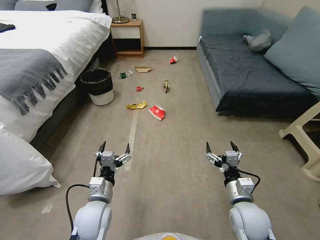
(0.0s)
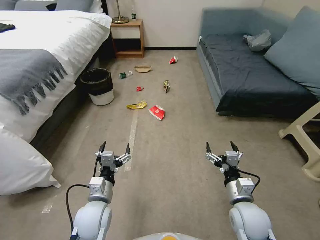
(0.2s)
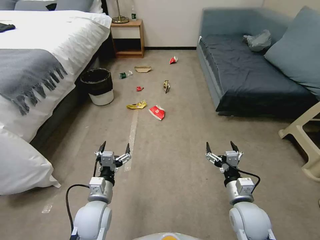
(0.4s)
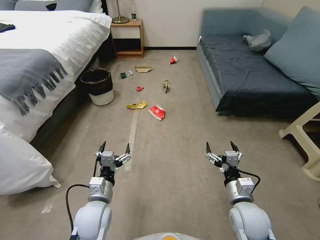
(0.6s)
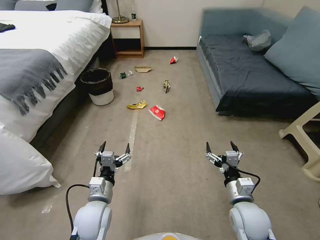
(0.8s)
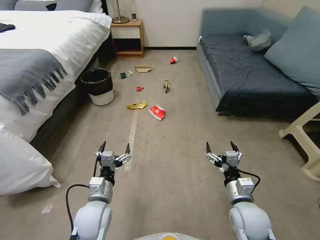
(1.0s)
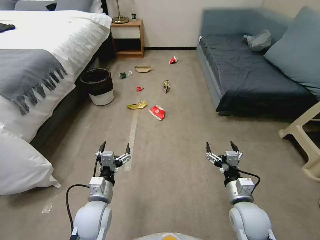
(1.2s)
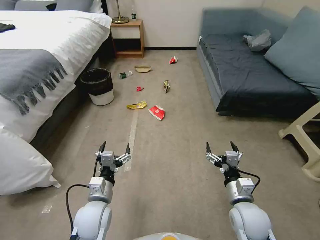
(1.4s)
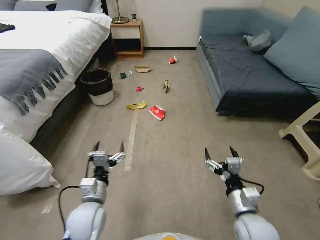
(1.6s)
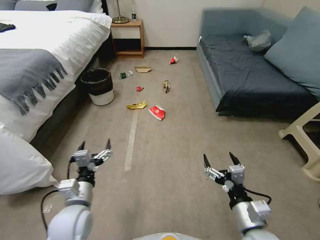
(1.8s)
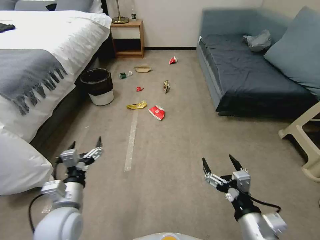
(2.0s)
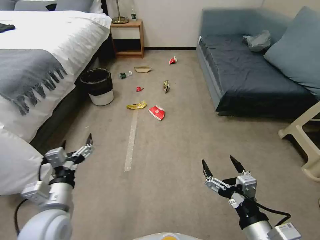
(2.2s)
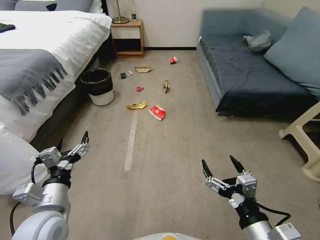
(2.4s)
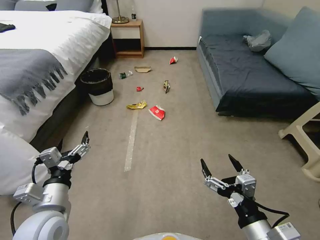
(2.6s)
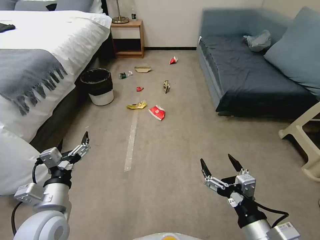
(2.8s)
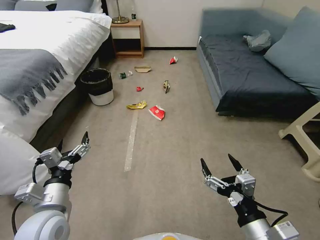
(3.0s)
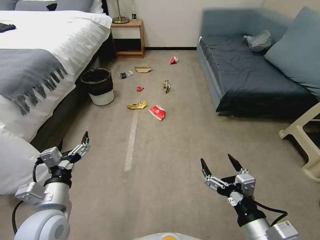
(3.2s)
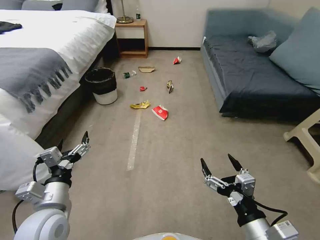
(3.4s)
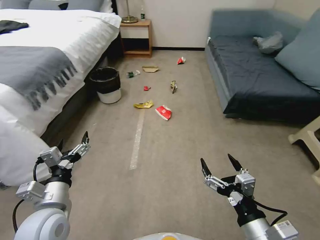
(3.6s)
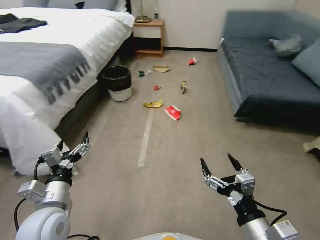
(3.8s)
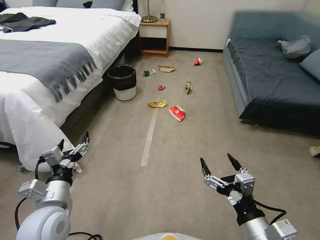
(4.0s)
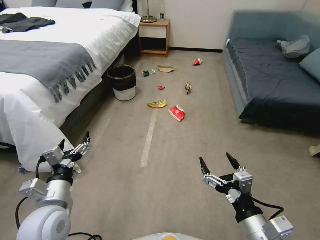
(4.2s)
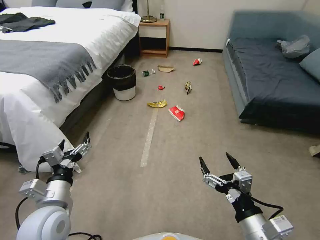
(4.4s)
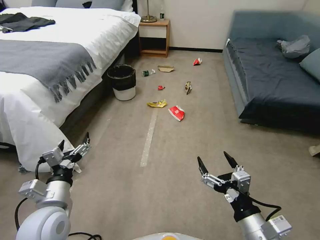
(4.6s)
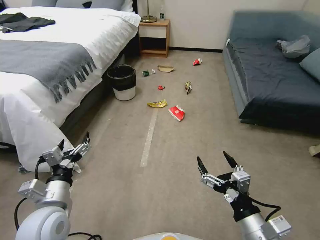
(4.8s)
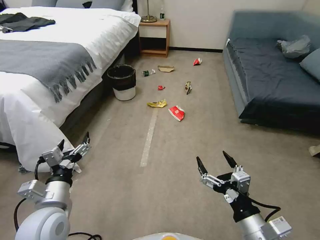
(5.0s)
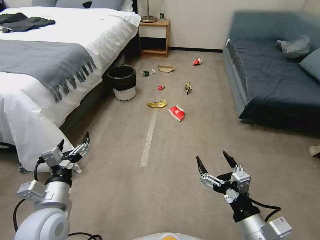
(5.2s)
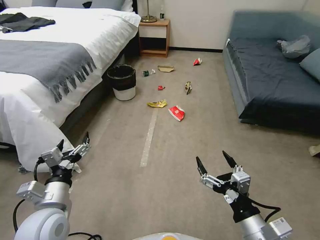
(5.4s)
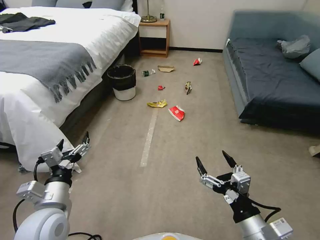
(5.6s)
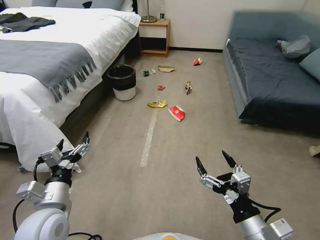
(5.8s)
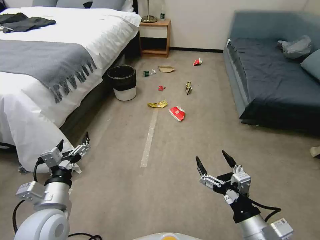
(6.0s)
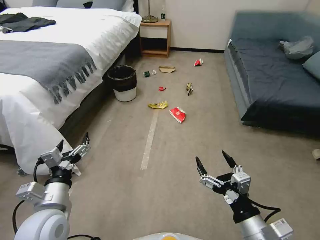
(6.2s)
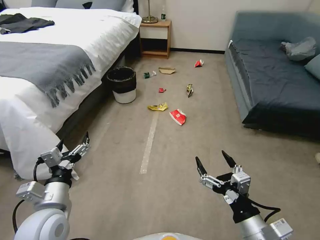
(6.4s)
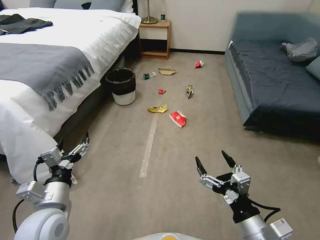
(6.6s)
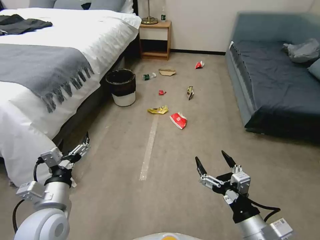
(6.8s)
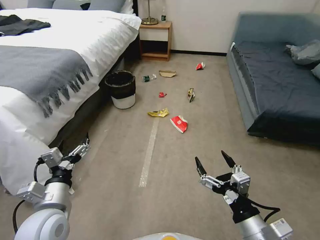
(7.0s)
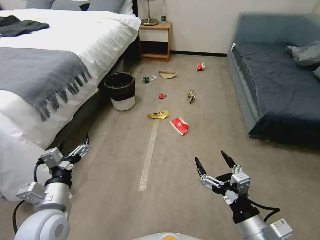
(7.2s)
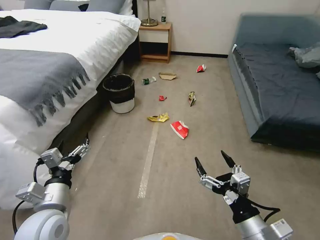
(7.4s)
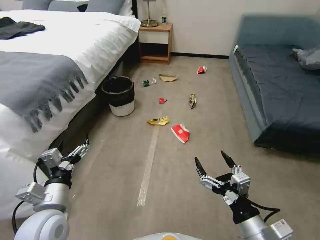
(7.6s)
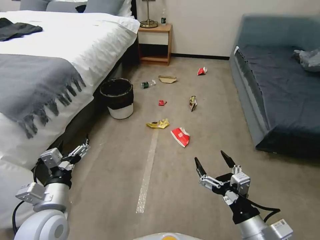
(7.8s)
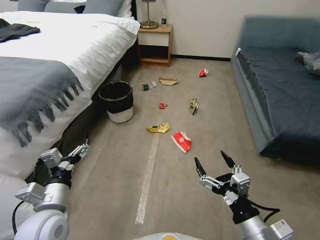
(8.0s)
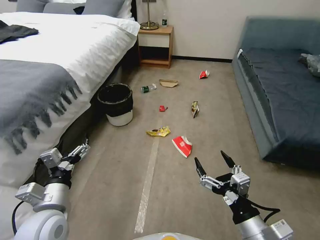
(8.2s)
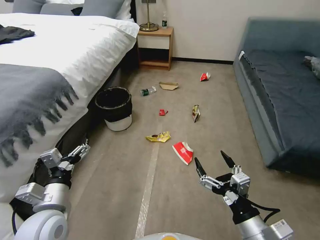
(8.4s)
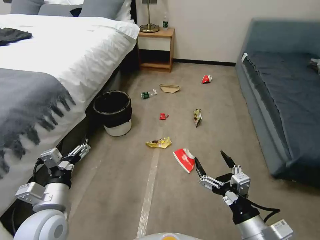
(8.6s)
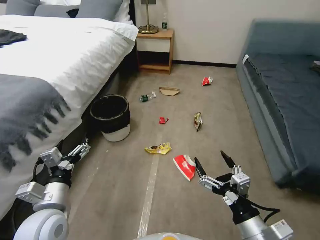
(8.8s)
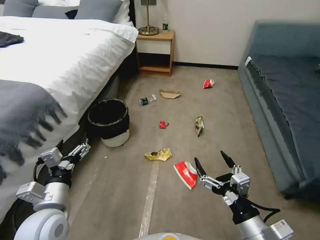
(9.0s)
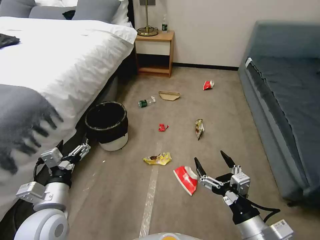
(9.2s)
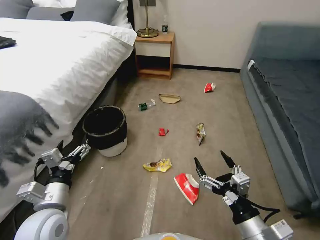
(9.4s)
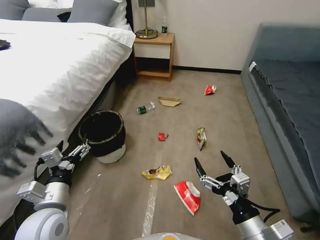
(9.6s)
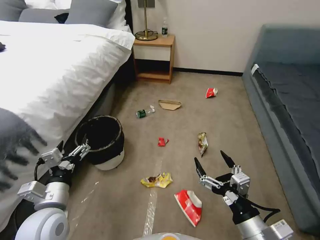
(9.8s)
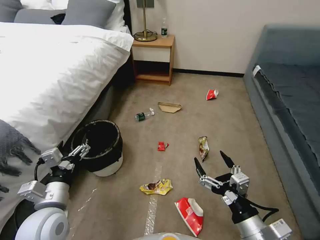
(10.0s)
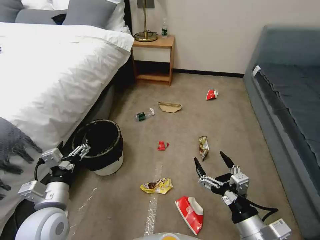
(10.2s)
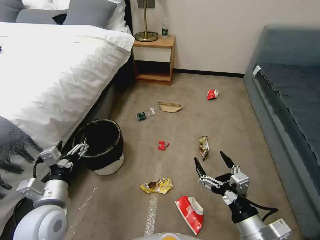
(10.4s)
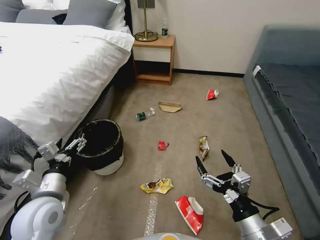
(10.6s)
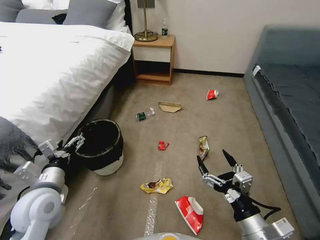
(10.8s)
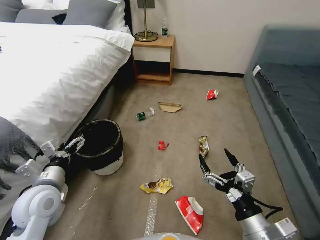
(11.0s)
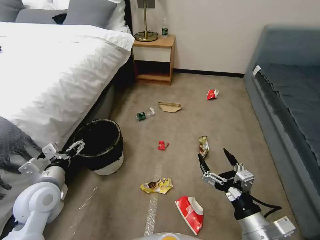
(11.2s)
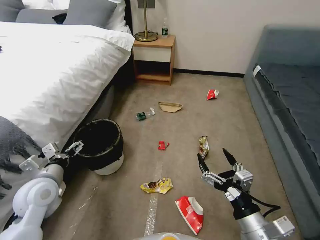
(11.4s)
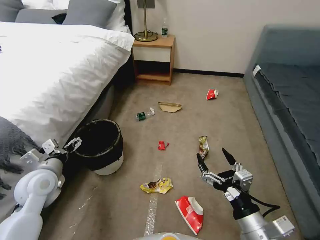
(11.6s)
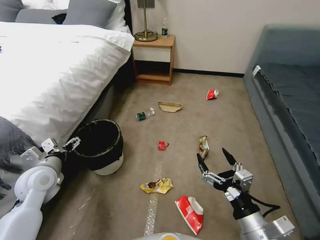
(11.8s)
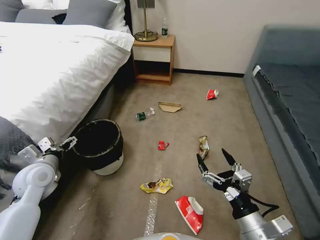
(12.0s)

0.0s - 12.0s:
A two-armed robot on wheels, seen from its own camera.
Task of the whole recording: Pick up the trash can from the floor.
1.6s - 3.0s: The left gripper is displaced upward and to the left by roughly 10 cm. The right gripper shifts roughly 10 cm backward and upward.
4.4s - 6.0s: The grippers stay close to where they were, moving slightly.
10.4s - 12.0s: The left gripper travels forward and to the left by some 15 cm.

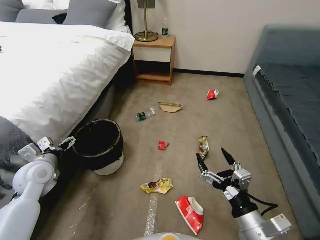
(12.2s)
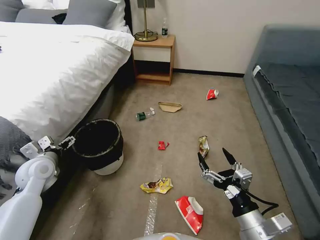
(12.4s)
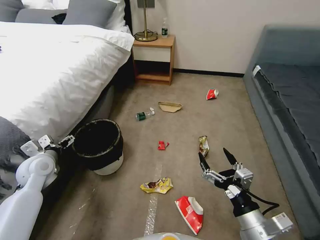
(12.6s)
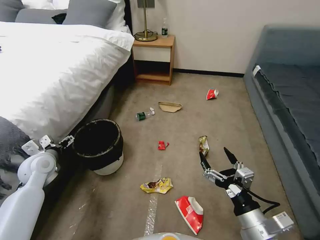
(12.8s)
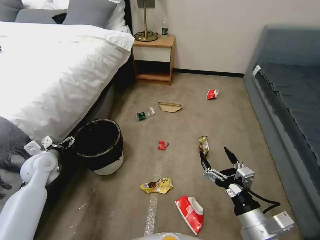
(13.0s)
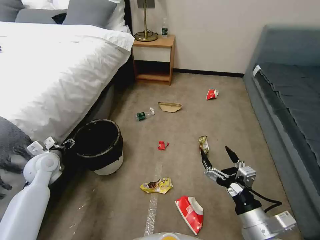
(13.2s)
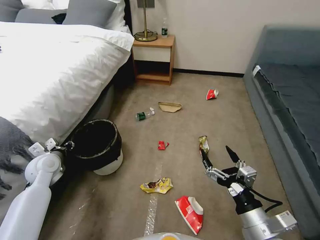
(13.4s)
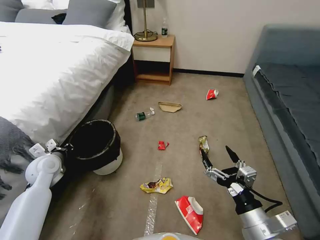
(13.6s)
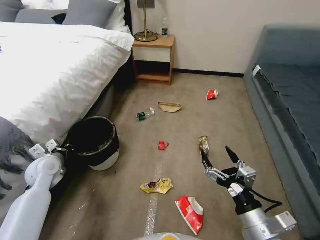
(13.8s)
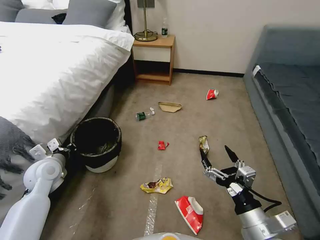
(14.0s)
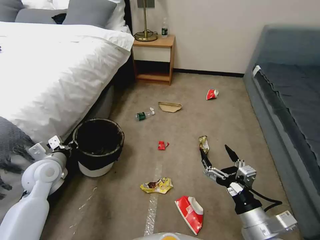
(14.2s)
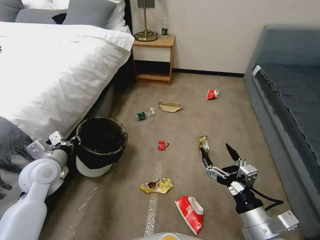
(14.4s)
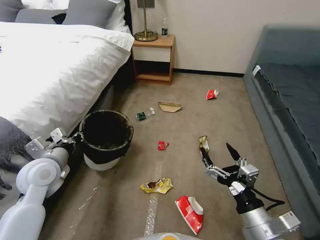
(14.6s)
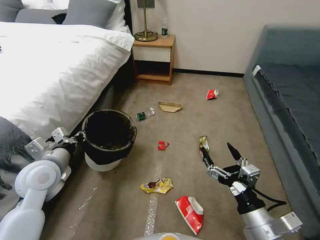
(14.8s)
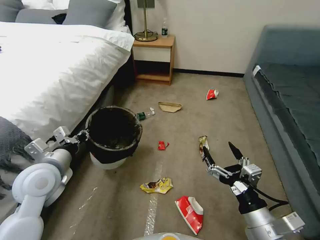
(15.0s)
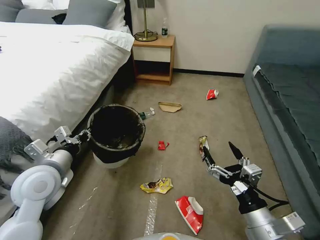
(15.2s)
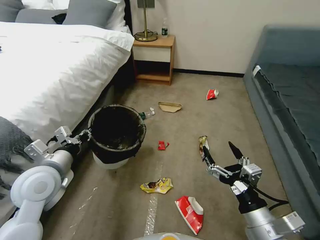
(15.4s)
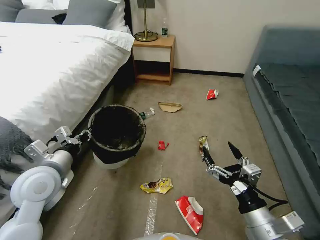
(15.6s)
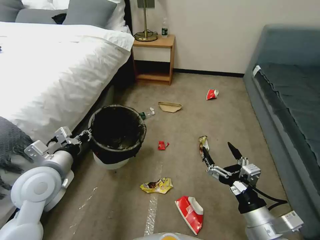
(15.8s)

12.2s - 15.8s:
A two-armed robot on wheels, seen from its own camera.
Task of the whole recording: Pick up the trash can from the floor.
12.2s - 14.0s: The left gripper closes up.
14.0s - 15.8s: The left gripper travels upward, to the right and backward by approximately 15 cm.
